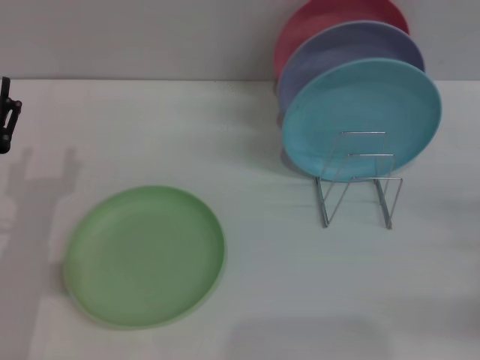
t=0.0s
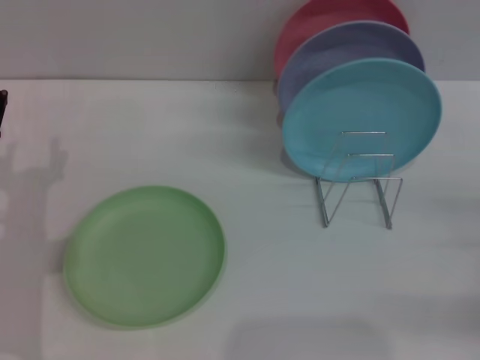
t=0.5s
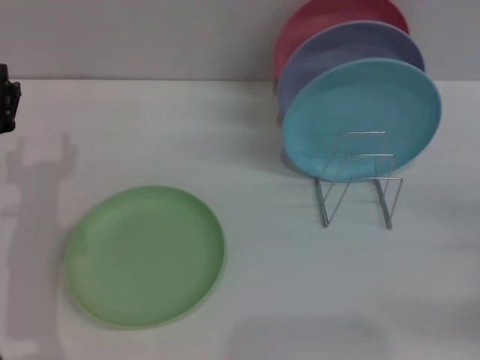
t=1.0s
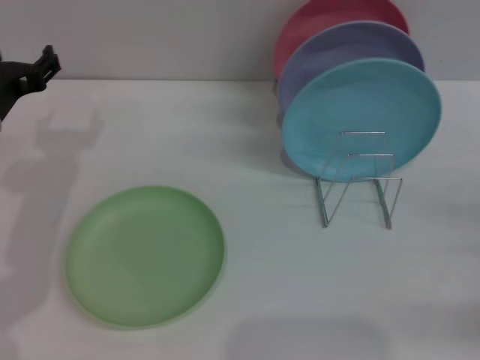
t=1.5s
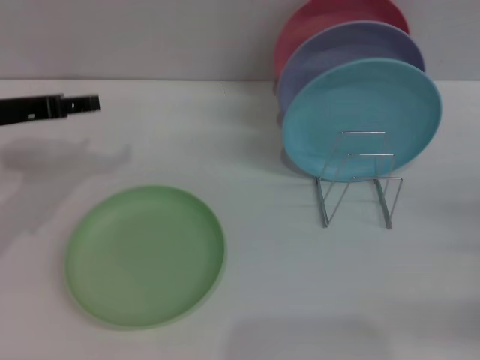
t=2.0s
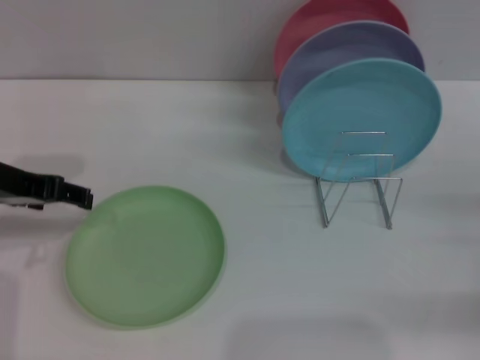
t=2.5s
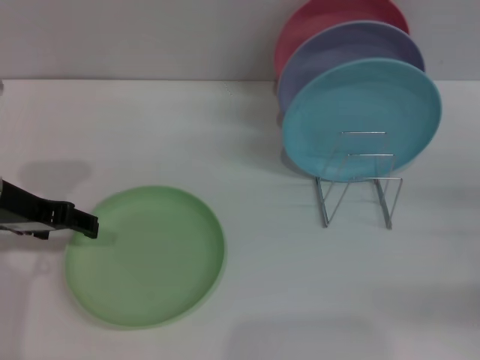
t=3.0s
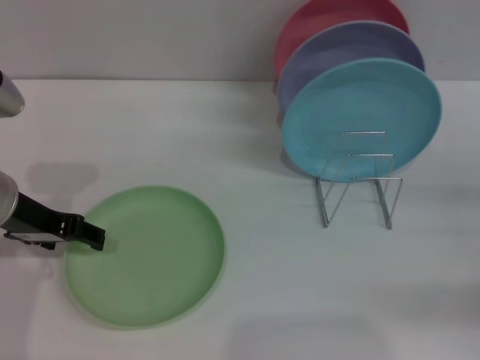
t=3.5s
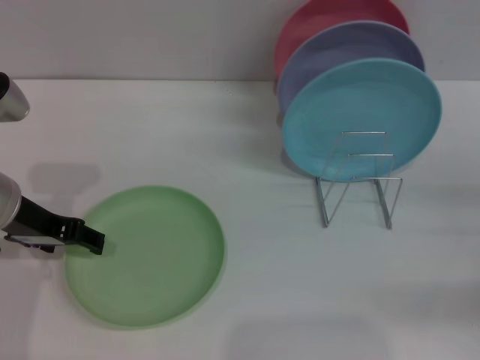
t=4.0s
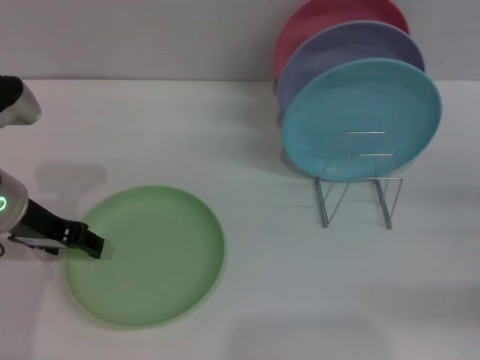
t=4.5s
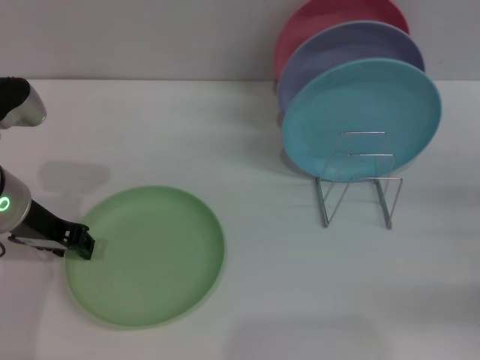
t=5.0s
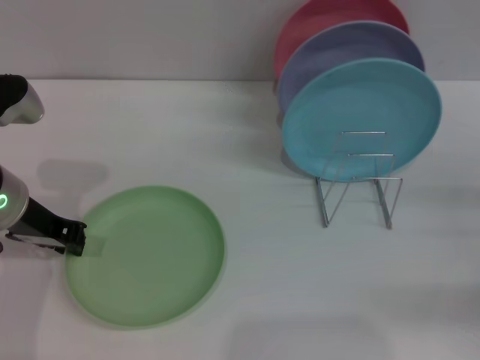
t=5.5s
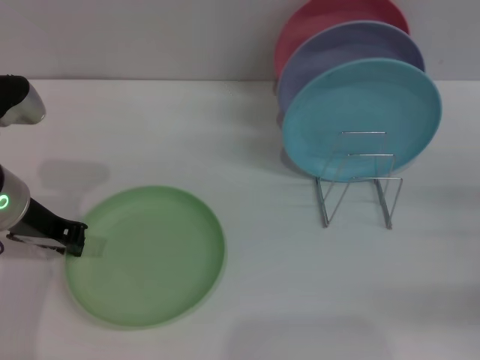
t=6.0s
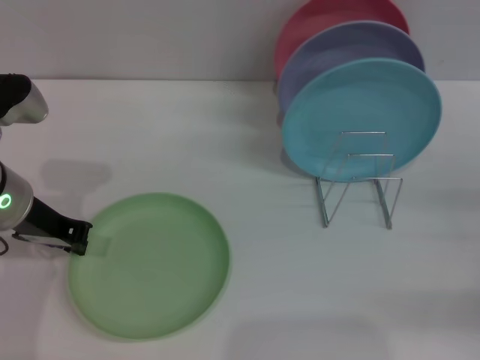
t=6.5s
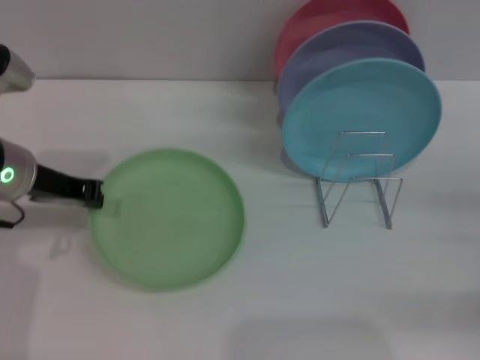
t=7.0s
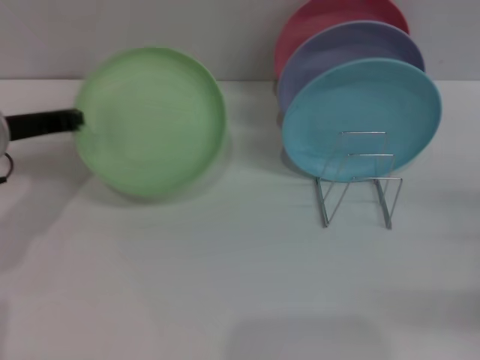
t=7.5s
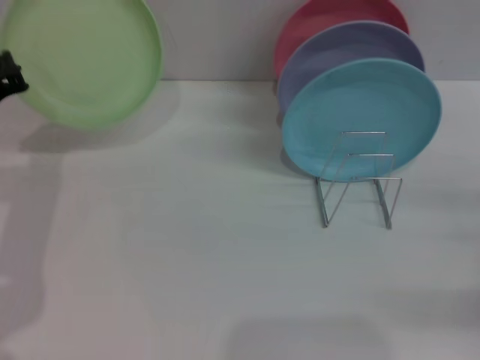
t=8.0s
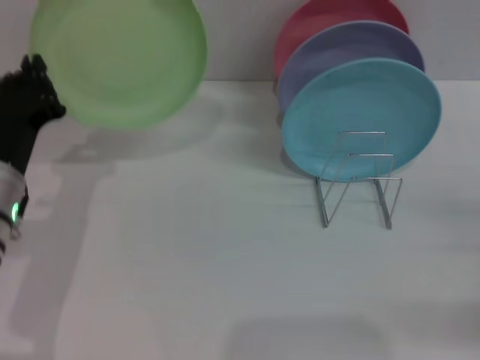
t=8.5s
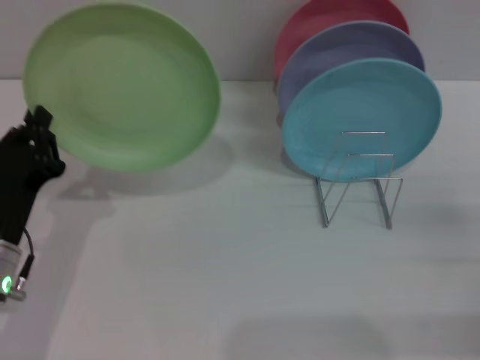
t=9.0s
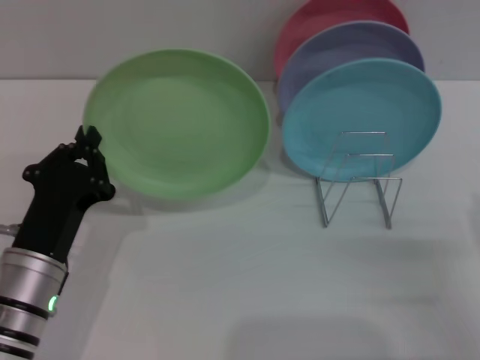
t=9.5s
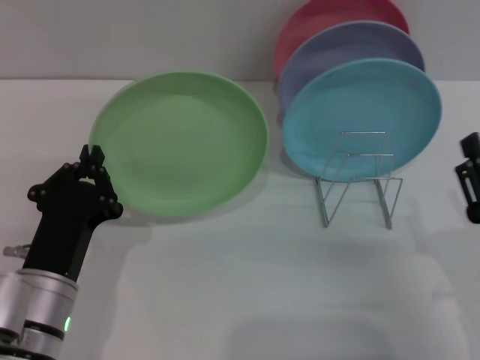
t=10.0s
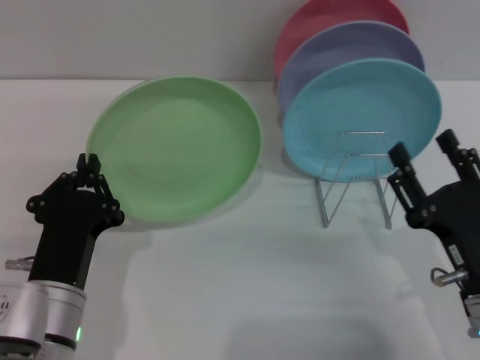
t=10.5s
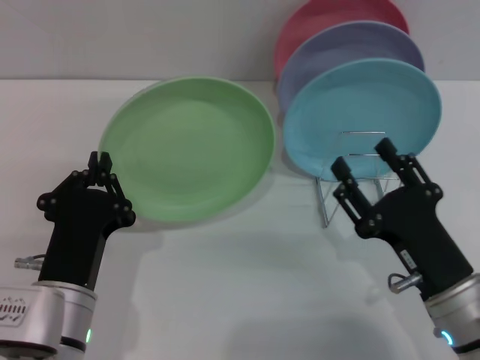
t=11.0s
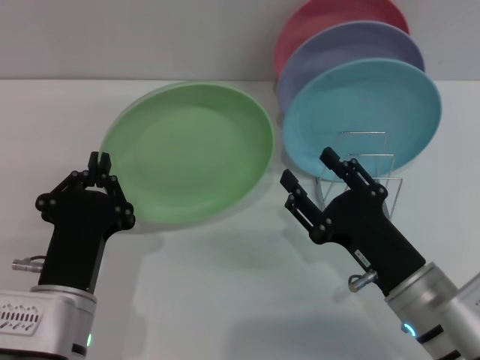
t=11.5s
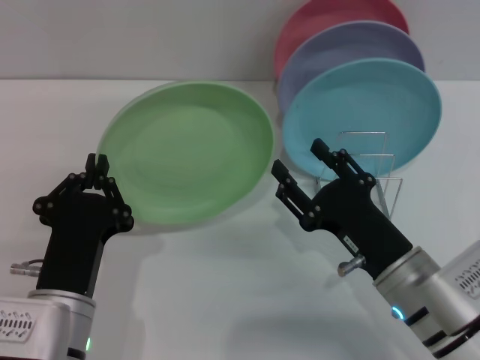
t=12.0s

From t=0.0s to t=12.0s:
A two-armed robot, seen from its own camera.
Task of the whole recording: Grip the plate with one hand, pass it to the other, then set it on the shelf.
Step, from t=0.0s to t=7.5s: Pick up the plate with the left gripper.
From t=0.0s to t=2.0s: The left gripper travels upward and forward by some 15 cm.
From t=2.0s to t=4.0s: The left gripper shifts by about 5 cm.
From t=4.0s to t=6.0s: The left gripper closes up.
From t=8.0s to t=10.0s: The right gripper heads to the left and backward, covering some 15 cm. The left gripper travels backward, downward and to the right by about 20 cm.
From t=10.0s to t=12.0s: The right gripper shifts about 10 cm to the left and forward.

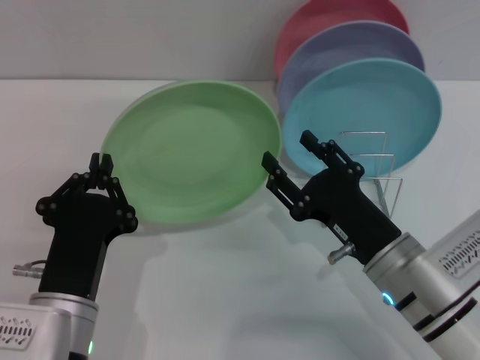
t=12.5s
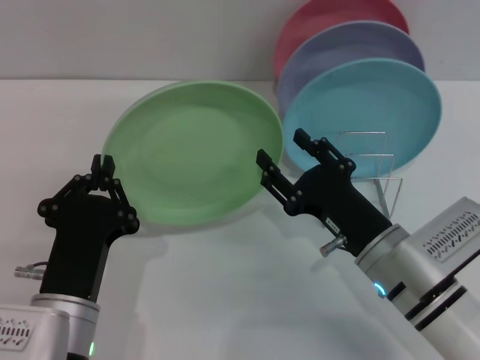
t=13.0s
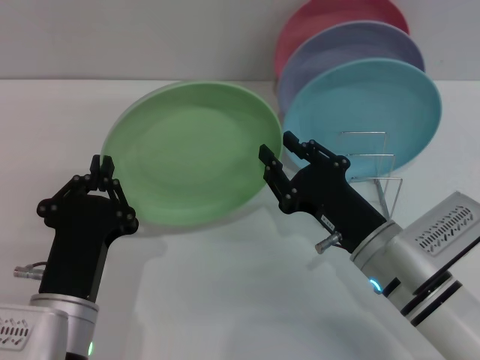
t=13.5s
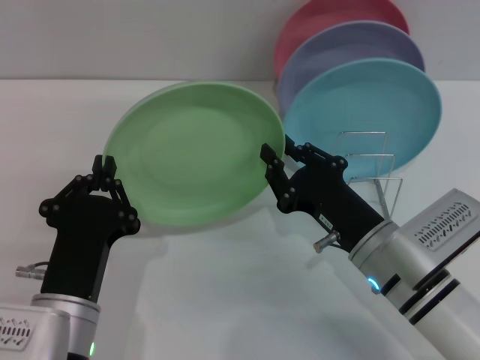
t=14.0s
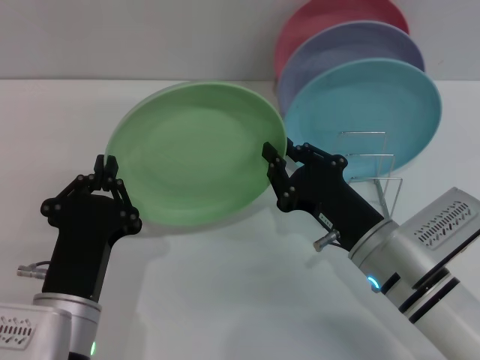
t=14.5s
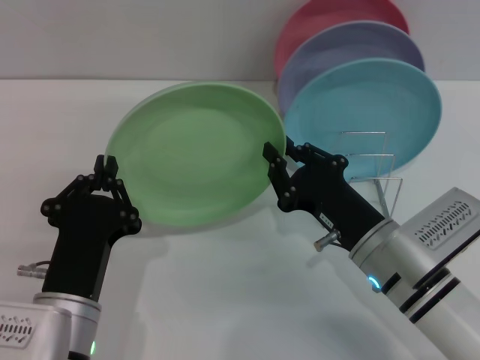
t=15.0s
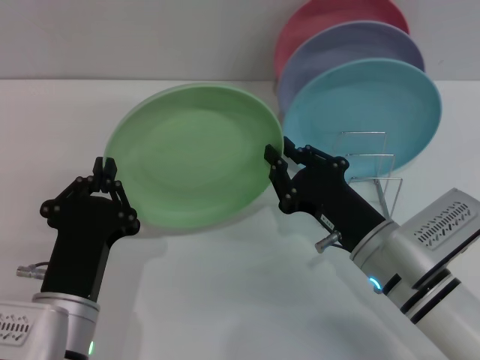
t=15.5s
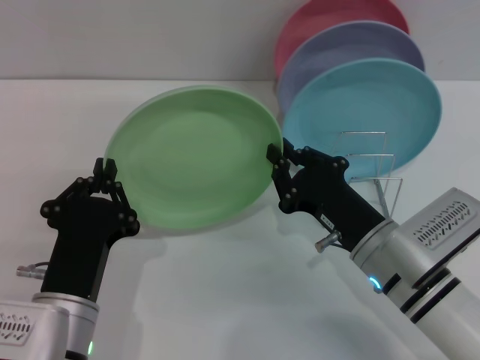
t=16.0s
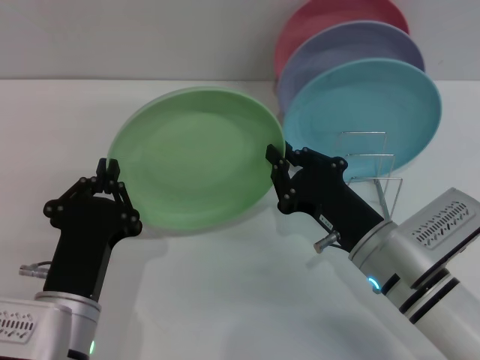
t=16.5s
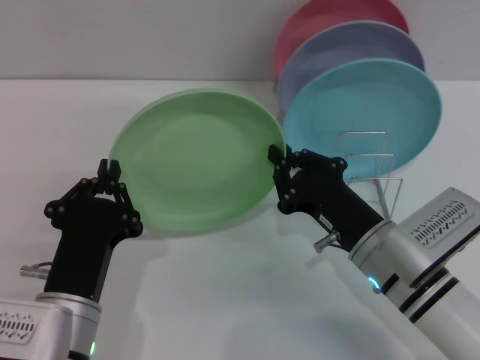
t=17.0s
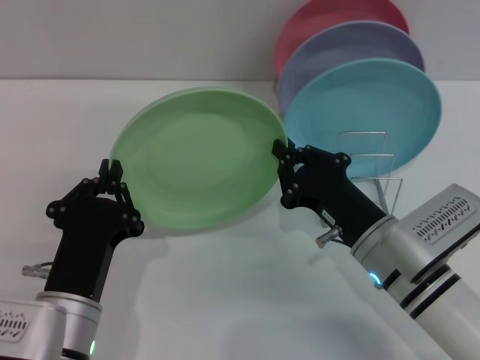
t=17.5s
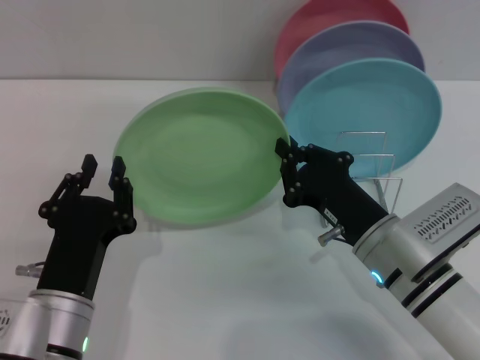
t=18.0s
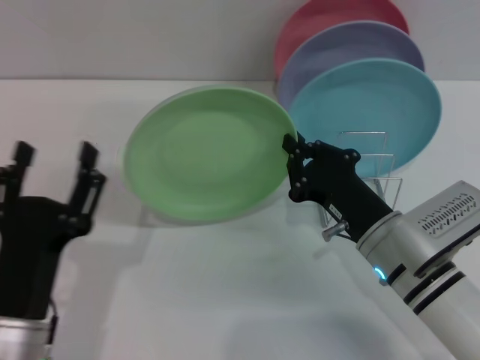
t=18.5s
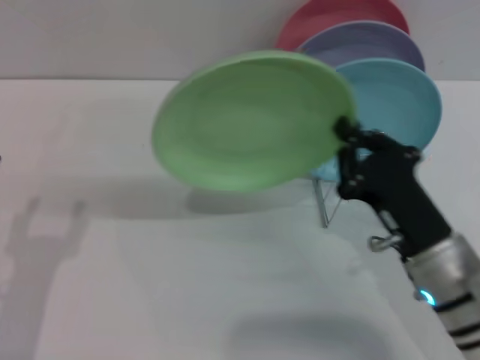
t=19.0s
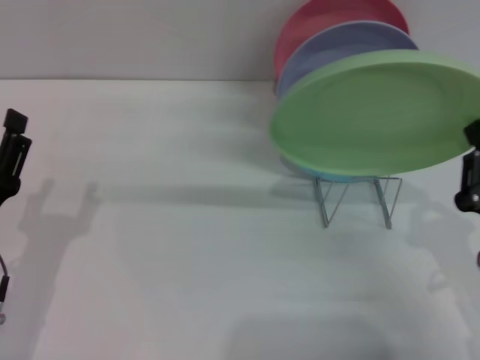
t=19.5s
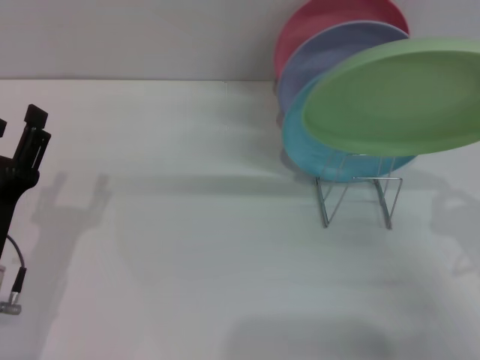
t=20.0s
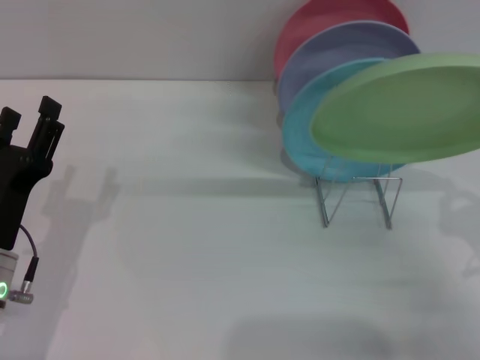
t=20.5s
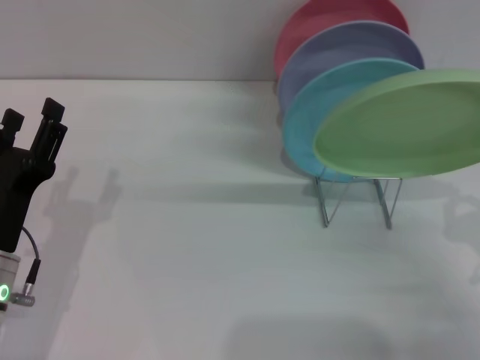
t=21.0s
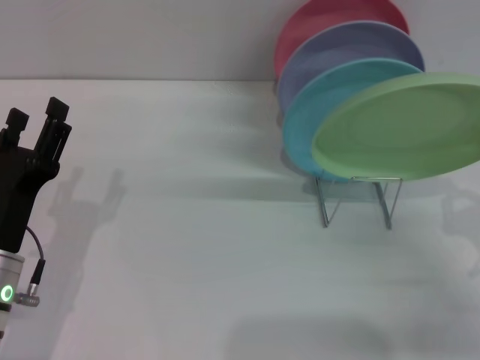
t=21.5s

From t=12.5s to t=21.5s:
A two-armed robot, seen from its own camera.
Task of the whole recording: Grip the plate with one hand, pass it to the other, then set it on the shelf.
Step, from t=12.5s to t=18.0s: Pass the plate from the left gripper to the right gripper.
From t=12.5s to t=14.5s: The right gripper closes.
From t=14.5s to t=17.0s: The two grippers keep their place.
From t=17.0s to t=19.5s: The right gripper shifts about 15 cm to the right and backward. The left gripper travels to the left by approximately 10 cm, and opens its fingers.
From t=19.5s to t=21.5s: The right gripper shifts roughly 5 cm to the right.

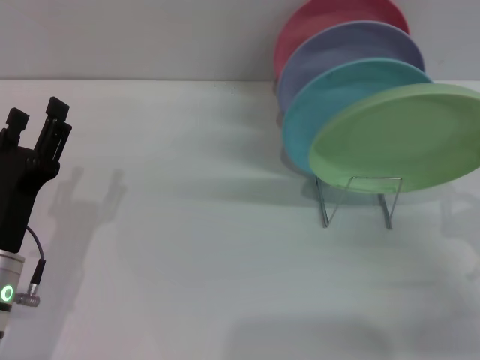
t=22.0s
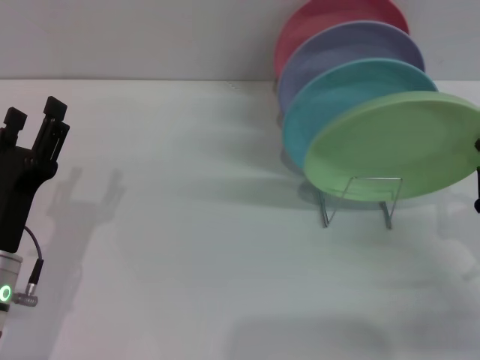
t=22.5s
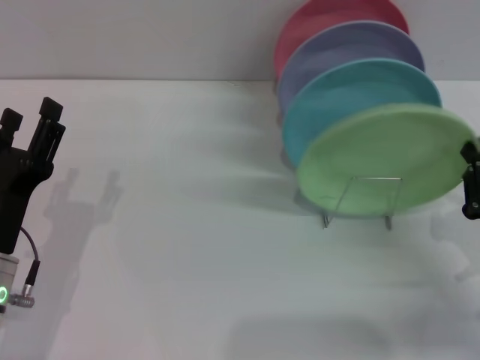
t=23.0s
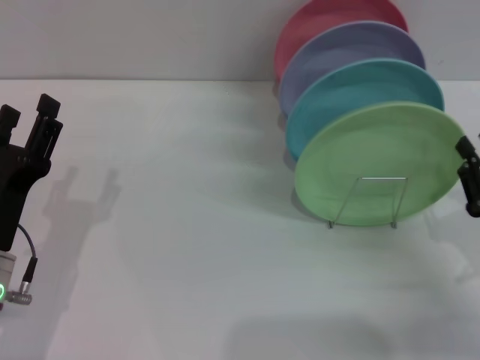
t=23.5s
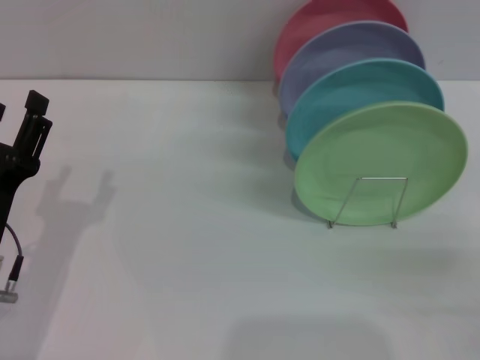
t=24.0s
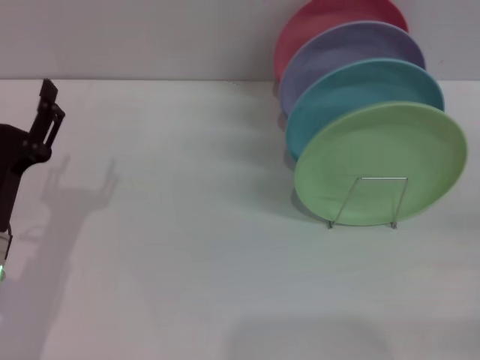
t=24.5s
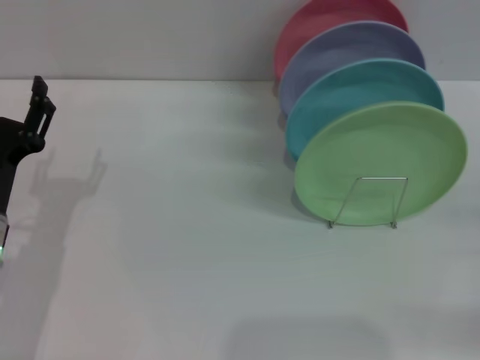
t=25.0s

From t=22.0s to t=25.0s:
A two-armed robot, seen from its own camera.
Task of the whole recording: Grip the plate with one hand, pass it to the other, then set it on the shelf.
From t=22.0s to t=23.5s: The grippers move only a little.
From t=23.5s to t=25.0s: The right gripper travels to the right by approximately 10 cm, and opens.

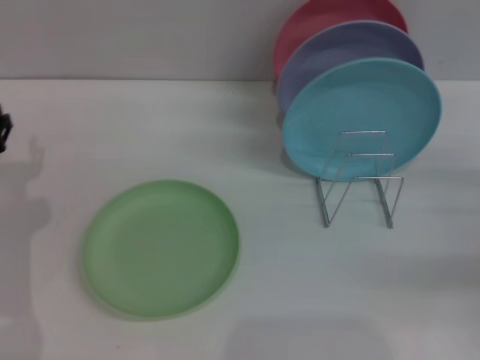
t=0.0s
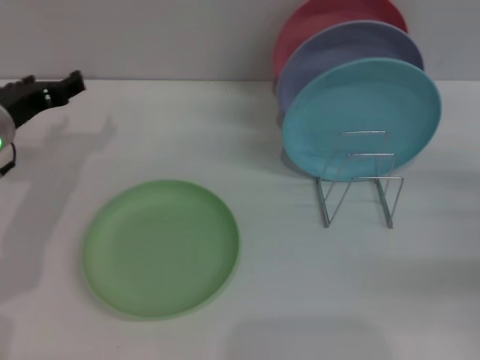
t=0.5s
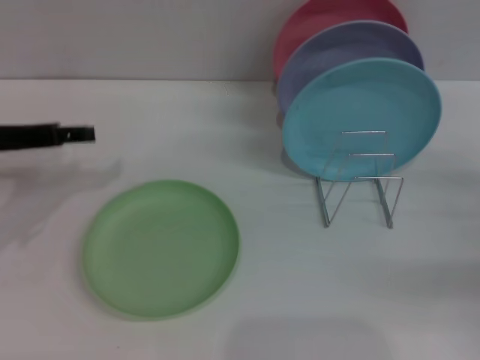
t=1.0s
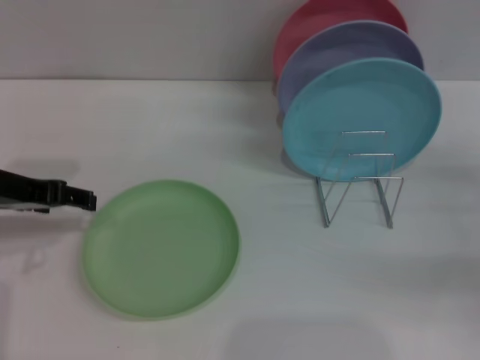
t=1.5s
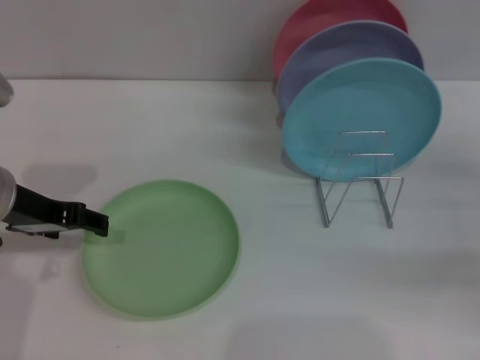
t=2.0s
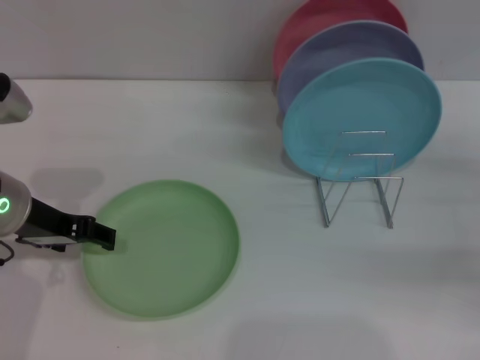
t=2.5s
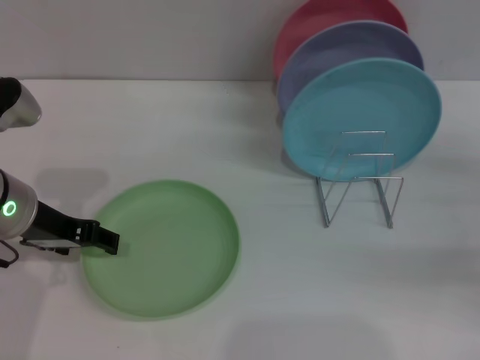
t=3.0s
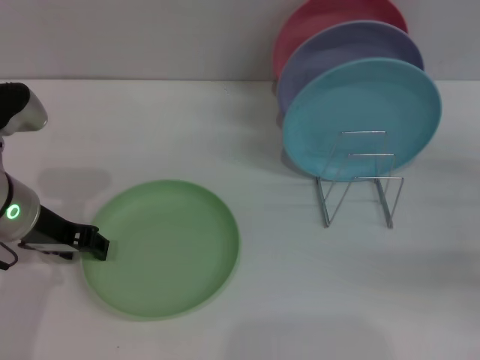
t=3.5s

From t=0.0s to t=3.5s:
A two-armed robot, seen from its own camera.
Task of the whole recording: Grip the plate with one hand, pass it to the other, then set it on the shelf.
From t=0.0s to t=2.0s: The left gripper is displaced upward by approximately 10 cm.
From t=2.0s to t=3.5s: The grippers move only a little.
